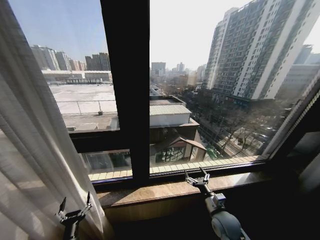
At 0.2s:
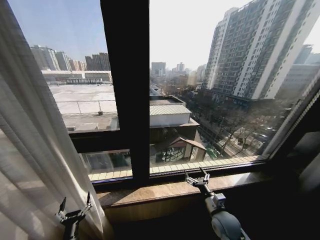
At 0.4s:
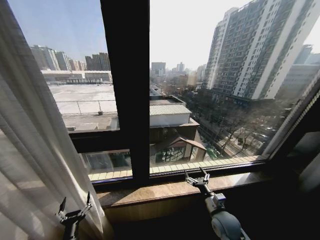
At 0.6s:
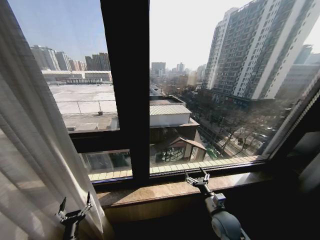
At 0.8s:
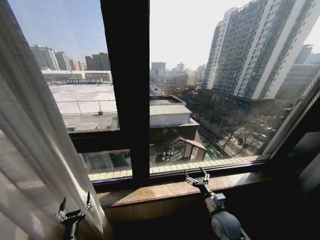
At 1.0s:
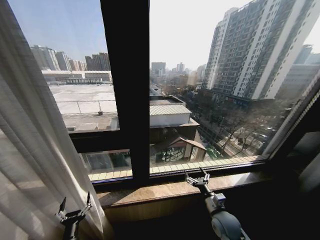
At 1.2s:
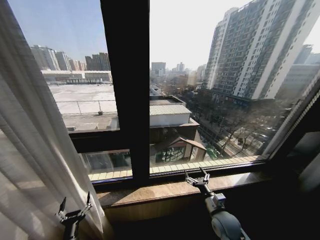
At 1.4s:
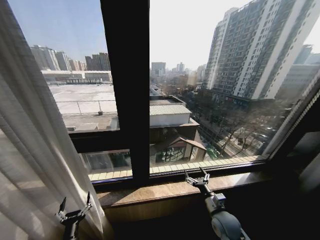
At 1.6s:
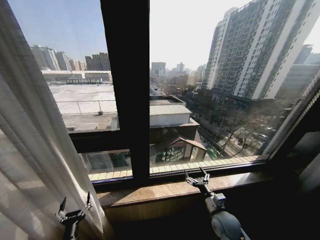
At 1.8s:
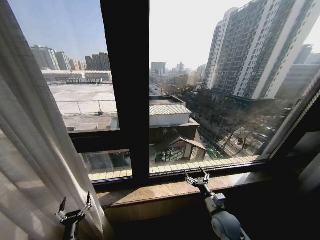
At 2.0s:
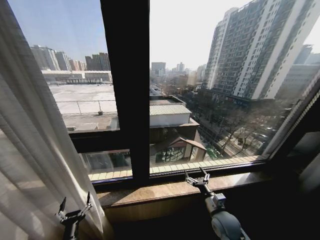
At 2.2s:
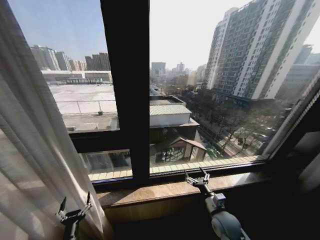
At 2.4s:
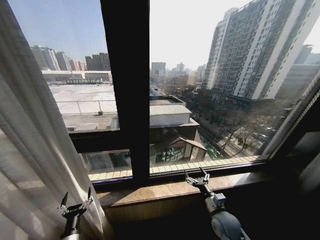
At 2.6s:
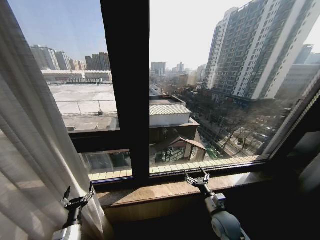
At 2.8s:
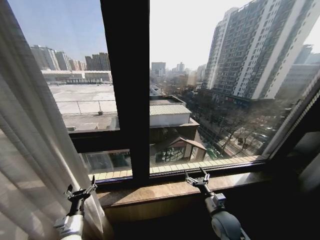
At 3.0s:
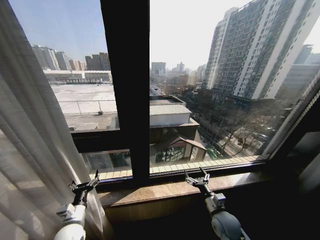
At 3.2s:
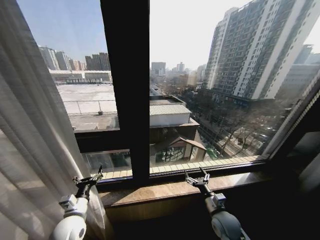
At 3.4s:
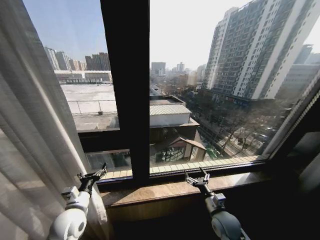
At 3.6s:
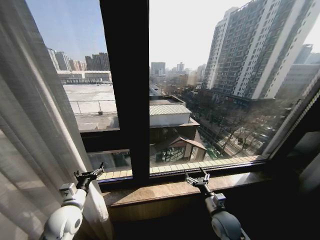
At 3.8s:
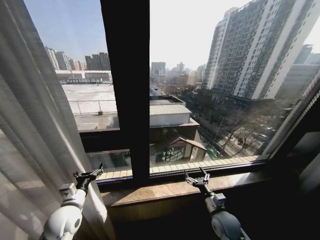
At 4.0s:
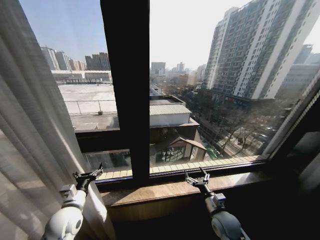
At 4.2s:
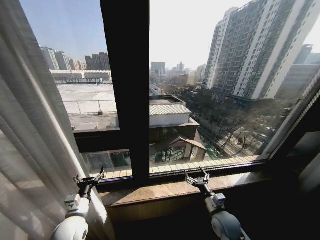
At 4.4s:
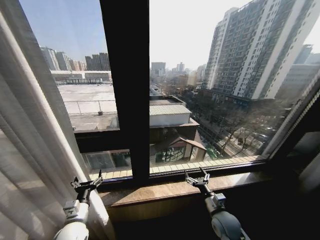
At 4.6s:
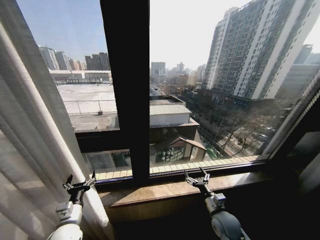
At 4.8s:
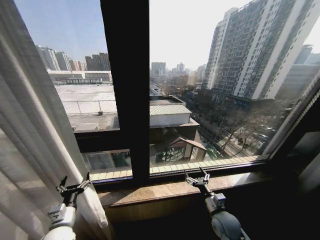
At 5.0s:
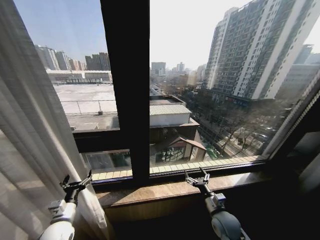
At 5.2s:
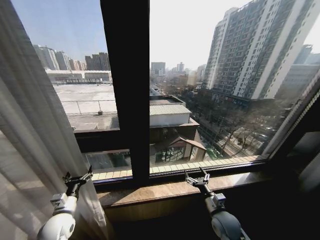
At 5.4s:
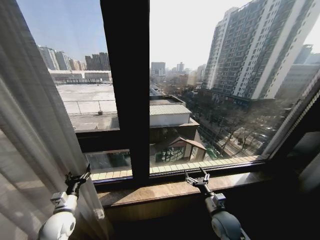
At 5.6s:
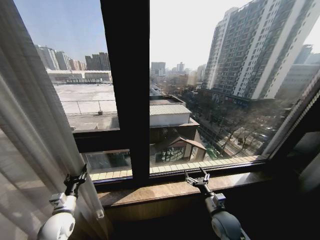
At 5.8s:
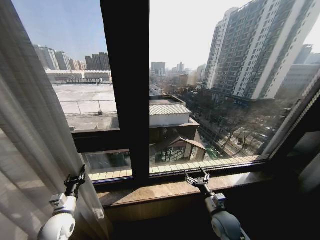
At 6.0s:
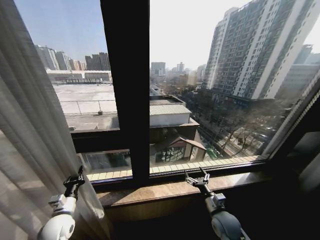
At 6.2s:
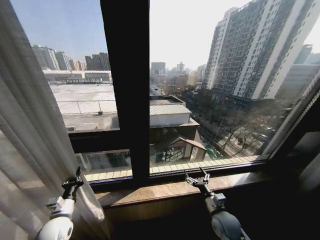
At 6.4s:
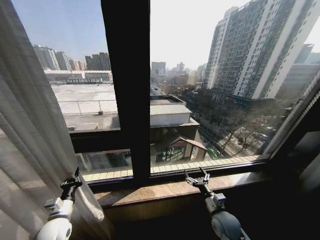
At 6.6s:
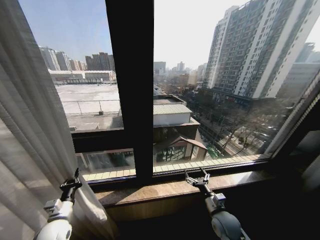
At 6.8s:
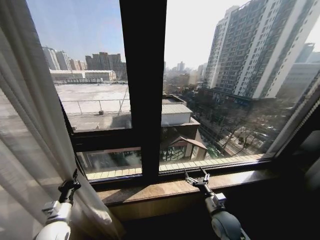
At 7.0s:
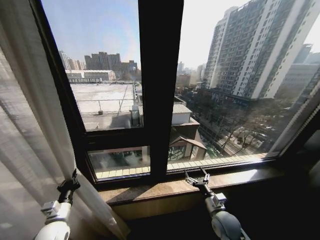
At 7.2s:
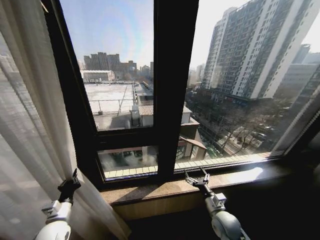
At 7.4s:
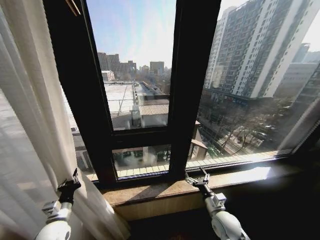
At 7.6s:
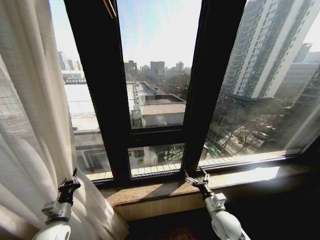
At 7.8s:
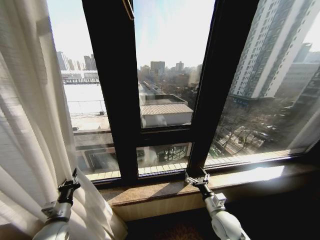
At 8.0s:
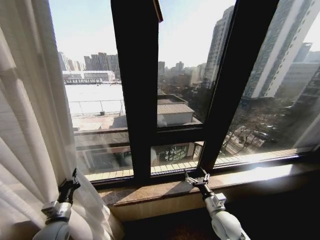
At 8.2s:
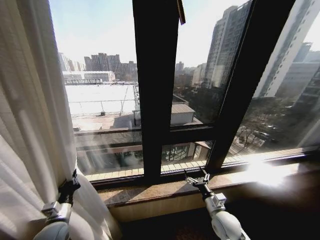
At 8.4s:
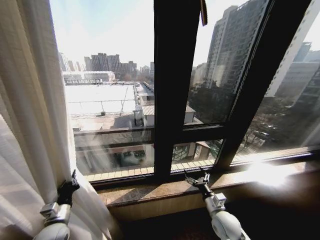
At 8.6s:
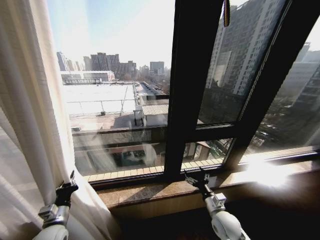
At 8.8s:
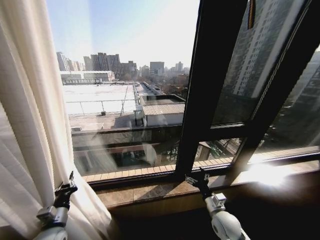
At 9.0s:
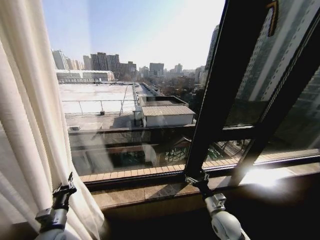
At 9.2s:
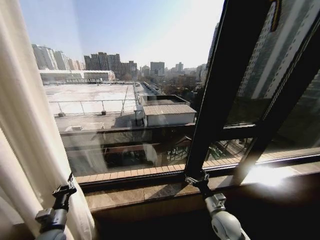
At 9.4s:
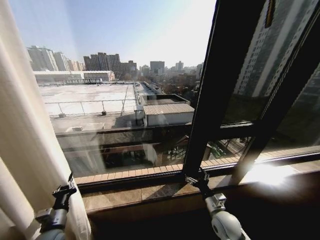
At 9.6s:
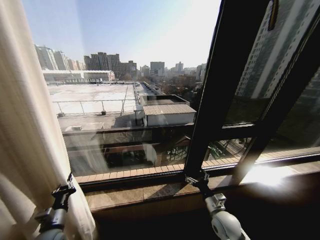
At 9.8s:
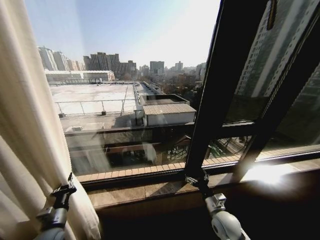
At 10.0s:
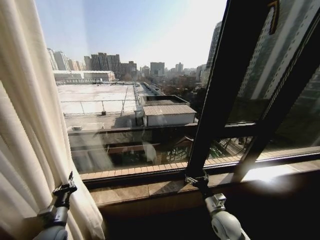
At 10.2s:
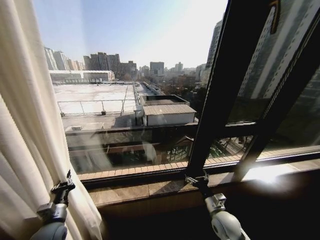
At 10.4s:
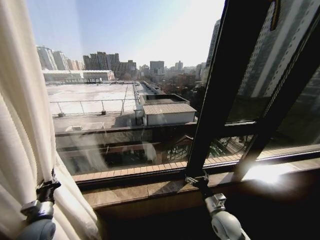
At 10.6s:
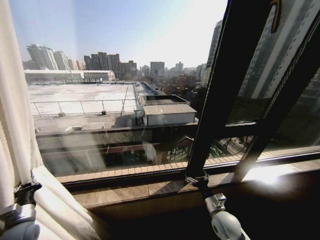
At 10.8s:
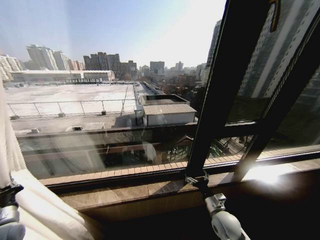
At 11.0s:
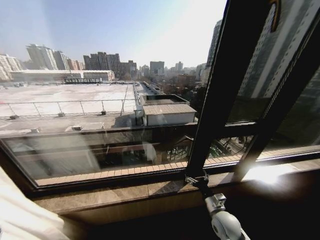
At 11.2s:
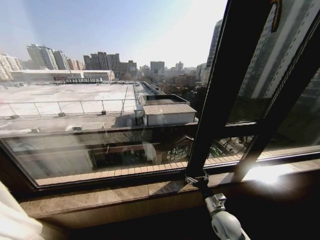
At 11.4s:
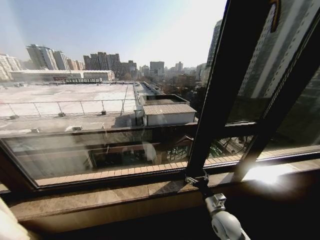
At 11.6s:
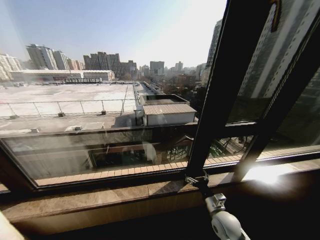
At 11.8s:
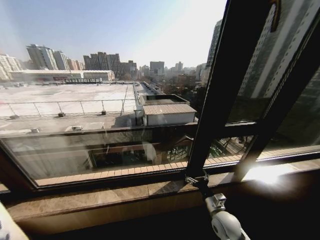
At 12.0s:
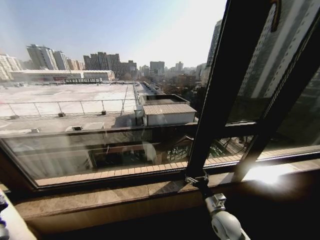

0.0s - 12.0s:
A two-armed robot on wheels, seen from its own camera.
Task of the whole recording: Open the curtains by pulling them apart, changing their state from closed to fully open.
0.0s - 1.6s: Both grippers stay put.
1.6s - 3.0s: The left gripper goes about 15 cm upward and forward.
4.4s - 6.0s: The left gripper moves to the left, about 10 cm, and closes its fingers.
10.4s - 12.0s: The left gripper heads to the left and backward, covering approximately 10 cm, and opens.

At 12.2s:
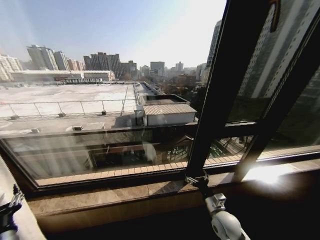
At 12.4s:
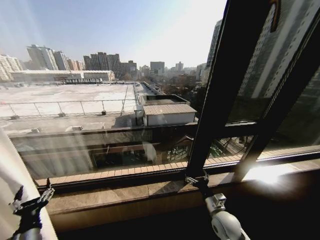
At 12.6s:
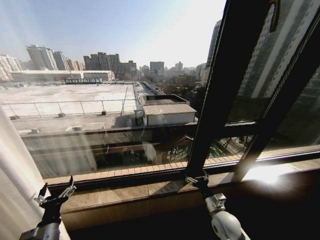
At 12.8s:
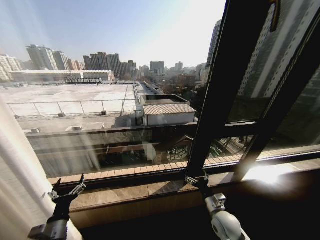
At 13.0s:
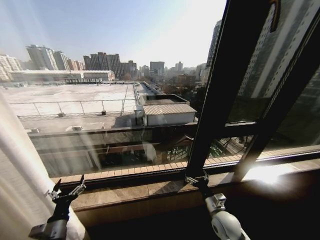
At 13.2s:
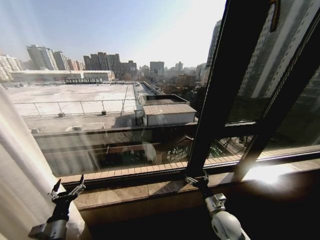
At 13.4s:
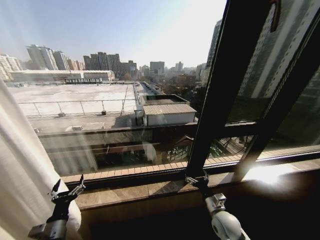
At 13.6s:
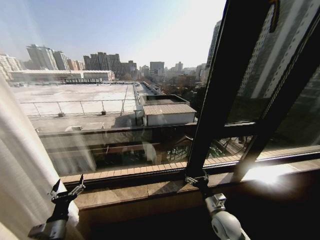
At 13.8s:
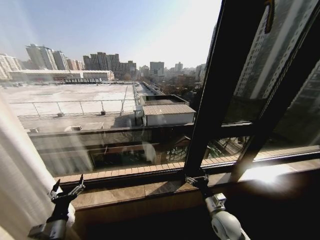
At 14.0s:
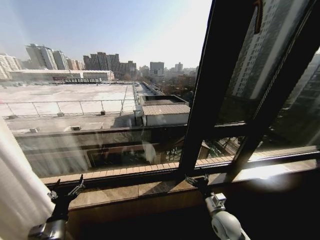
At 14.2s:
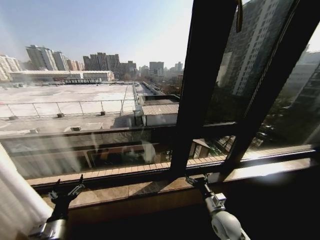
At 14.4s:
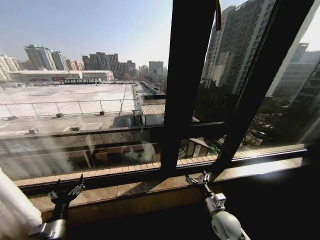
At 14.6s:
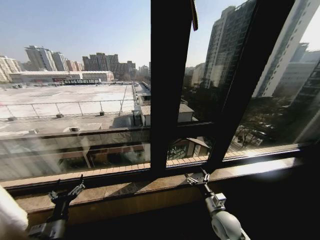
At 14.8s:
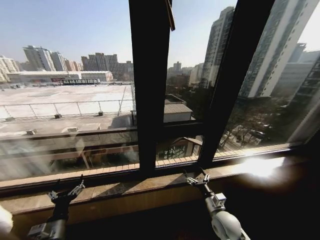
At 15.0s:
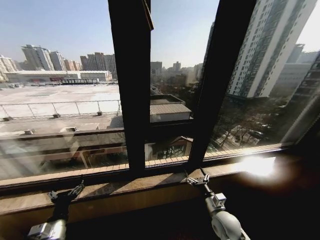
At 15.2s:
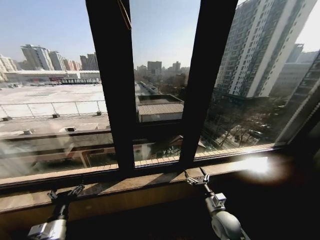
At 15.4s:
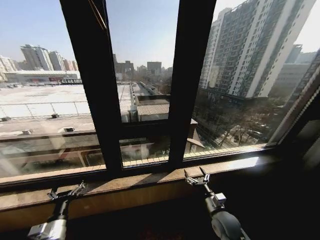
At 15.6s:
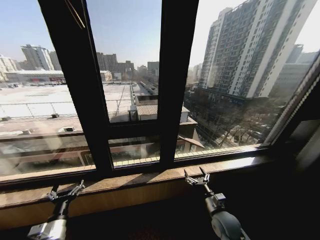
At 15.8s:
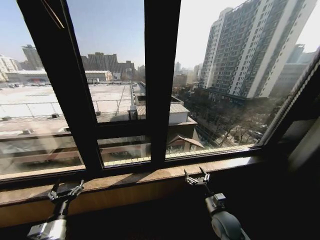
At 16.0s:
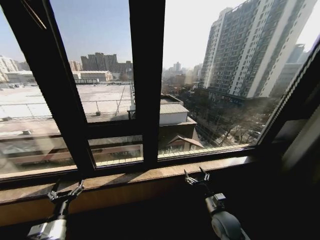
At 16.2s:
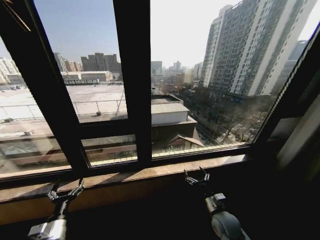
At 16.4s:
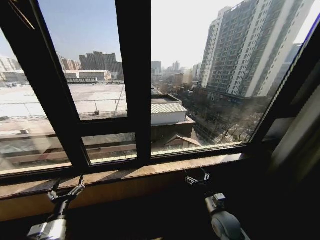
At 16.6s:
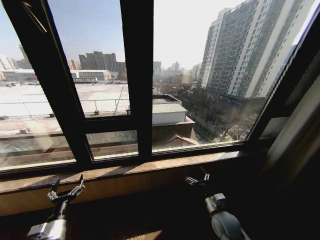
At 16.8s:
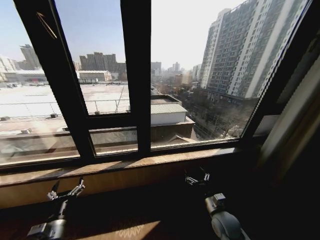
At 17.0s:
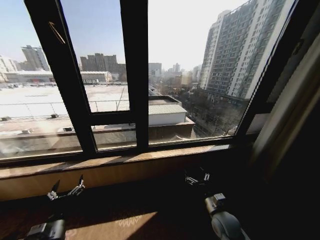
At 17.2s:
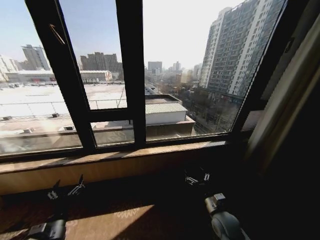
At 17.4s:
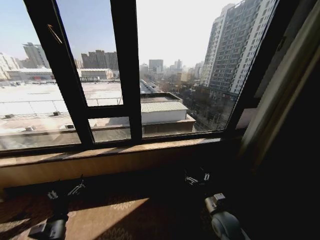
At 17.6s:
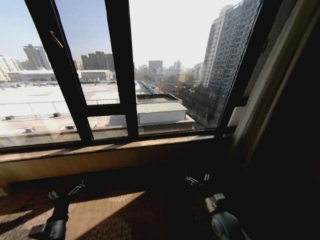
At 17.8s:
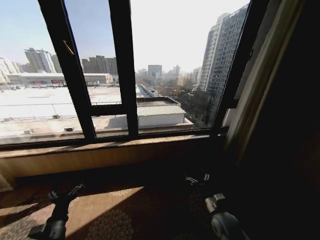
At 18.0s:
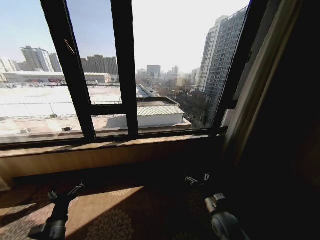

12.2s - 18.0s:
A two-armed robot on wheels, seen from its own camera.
Task of the whole recording: Open the curtains by pulling them apart, changing their state from closed to fully open.
12.2s - 13.6s: The left gripper shifts approximately 10 cm to the right, and opens up.
